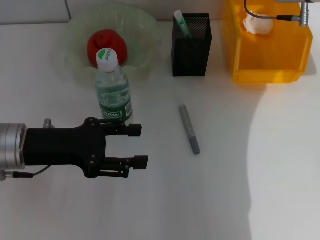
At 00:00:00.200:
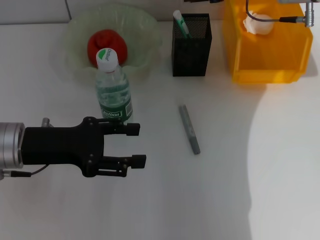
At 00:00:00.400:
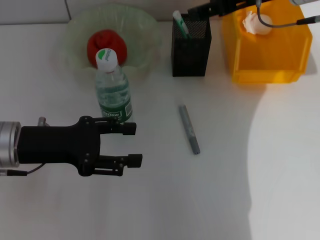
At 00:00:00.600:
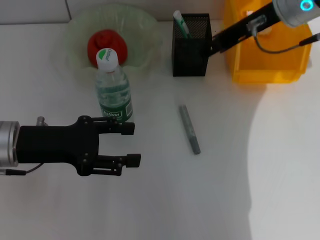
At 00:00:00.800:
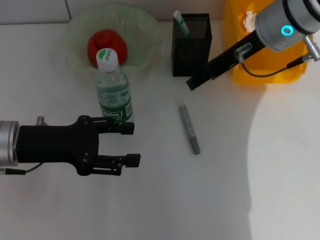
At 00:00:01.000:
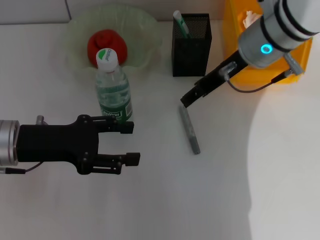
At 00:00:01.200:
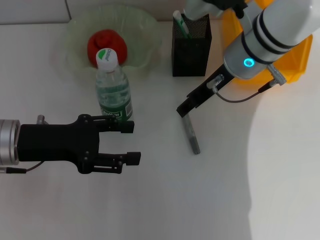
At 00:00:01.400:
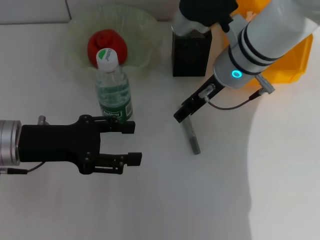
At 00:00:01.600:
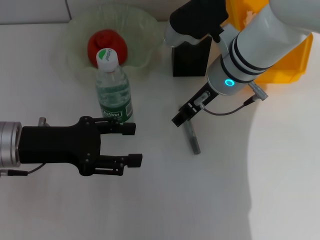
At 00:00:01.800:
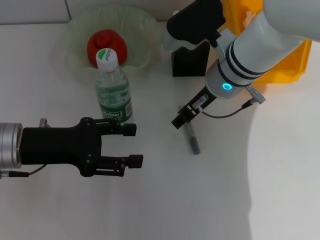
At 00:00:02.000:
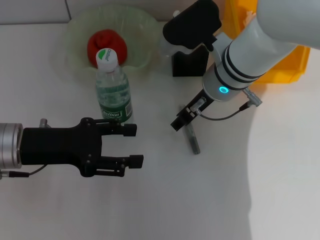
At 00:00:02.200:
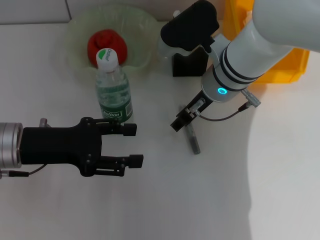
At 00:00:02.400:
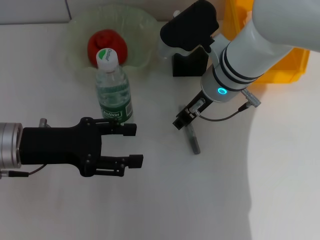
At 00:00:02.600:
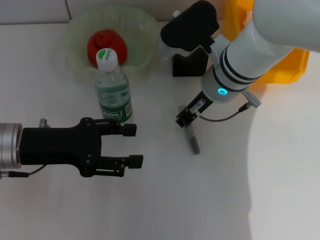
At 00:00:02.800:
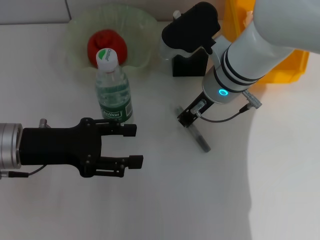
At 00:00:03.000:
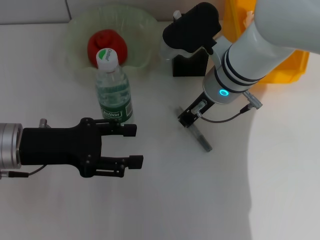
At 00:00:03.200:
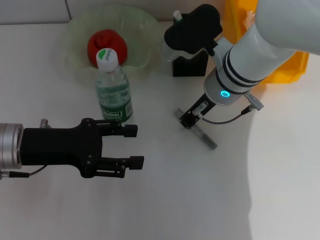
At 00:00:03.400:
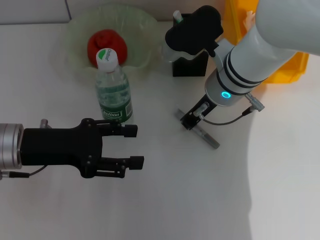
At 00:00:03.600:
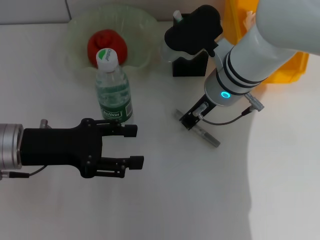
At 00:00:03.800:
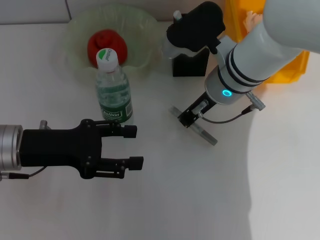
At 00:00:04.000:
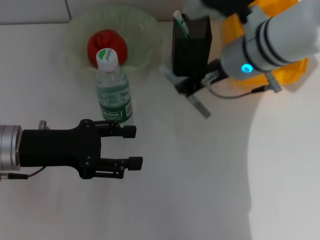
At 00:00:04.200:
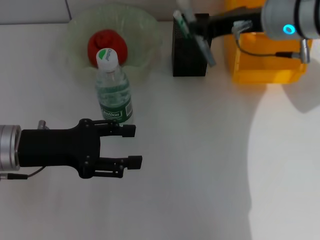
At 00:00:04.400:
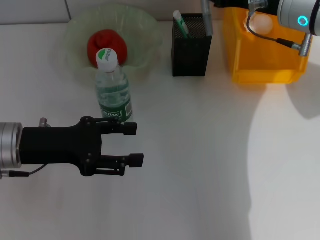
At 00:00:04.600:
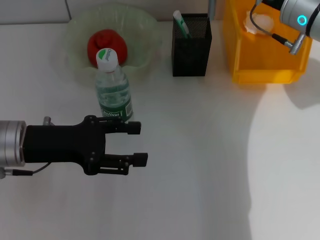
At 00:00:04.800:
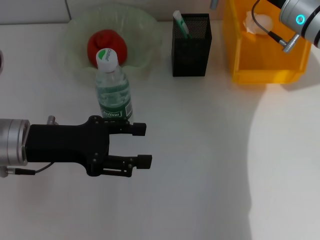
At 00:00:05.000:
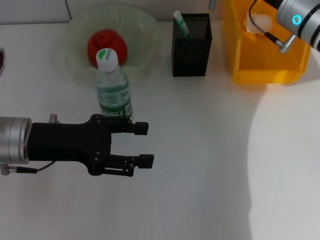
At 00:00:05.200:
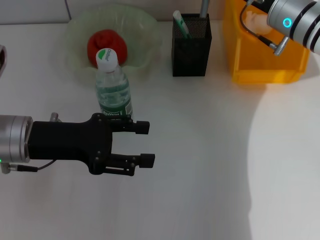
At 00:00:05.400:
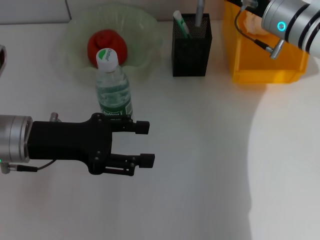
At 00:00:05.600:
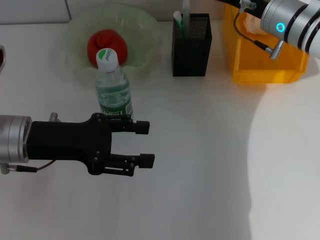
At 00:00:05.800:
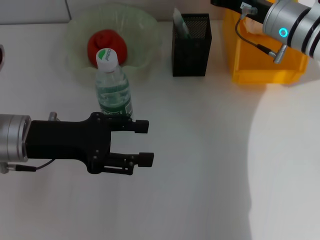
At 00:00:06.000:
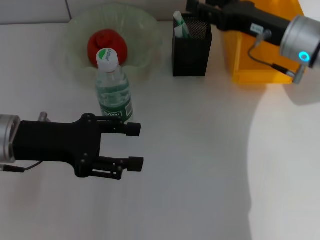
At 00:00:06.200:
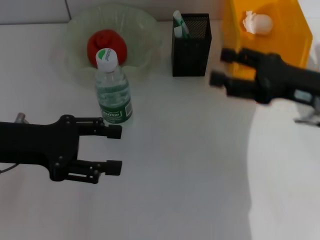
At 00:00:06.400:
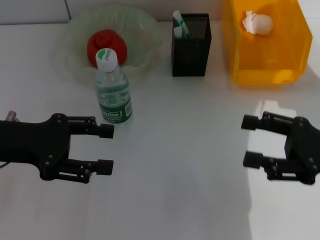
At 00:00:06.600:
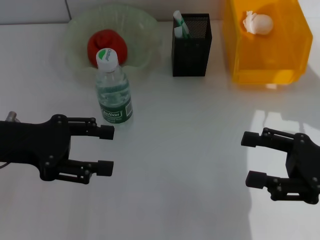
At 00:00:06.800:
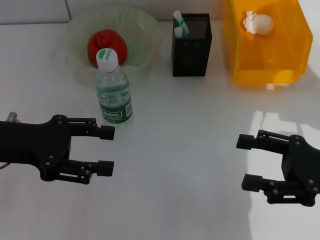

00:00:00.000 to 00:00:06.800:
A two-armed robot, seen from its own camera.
Step, 00:00:00.400 to 00:00:03.400: Grab the gray glue with the right hand.
Step, 00:00:03.600 to 00:00:05.800: Place the gray glue into the pen holder with the right hand.
00:00:00.000 to 00:00:01.400: The right gripper travels to the left, downward and backward by approximately 10 cm, and opens up.
00:00:01.400 to 00:00:02.800: The right gripper closes.
00:00:02.800 to 00:00:04.000: The right gripper ends up roughly 5 cm from where it was, and closes its fingers.
00:00:04.000 to 00:00:05.400: The right gripper is displaced to the right and forward by some 10 cm.
00:00:05.400 to 00:00:06.800: The right gripper heads backward and to the right, covering some 25 cm, and opens up; the left gripper moves approximately 5 cm.
